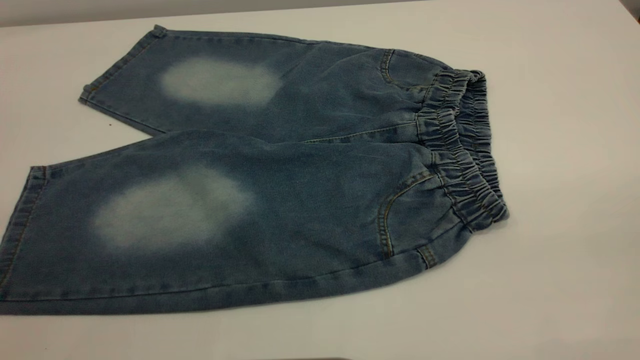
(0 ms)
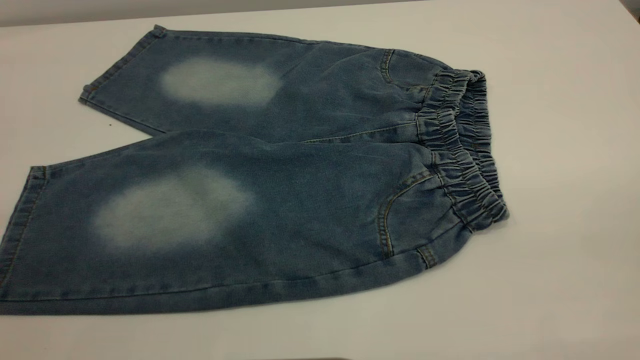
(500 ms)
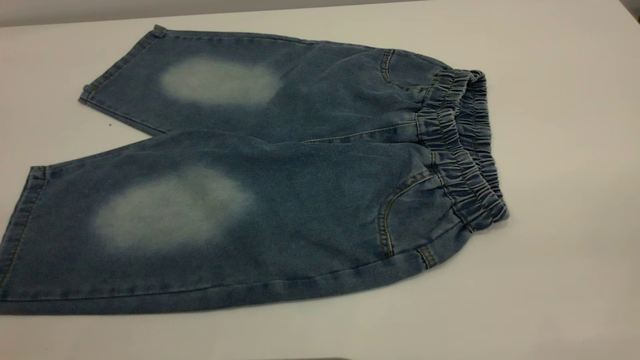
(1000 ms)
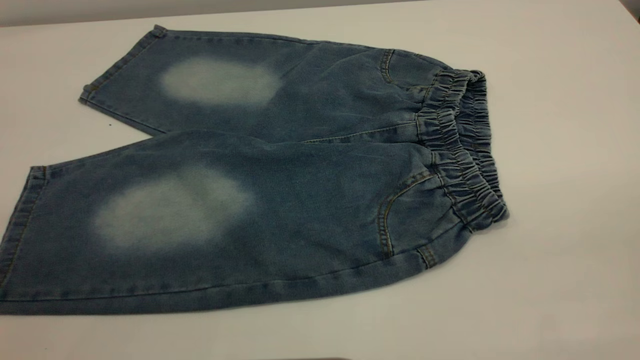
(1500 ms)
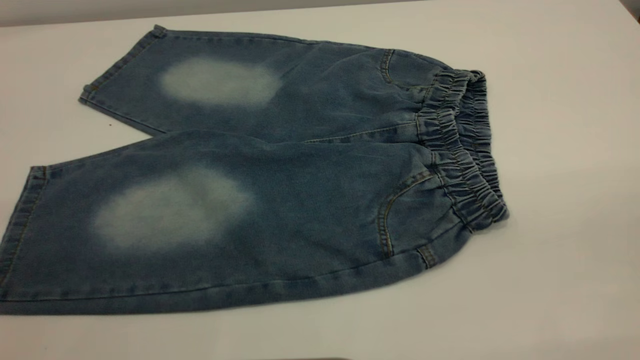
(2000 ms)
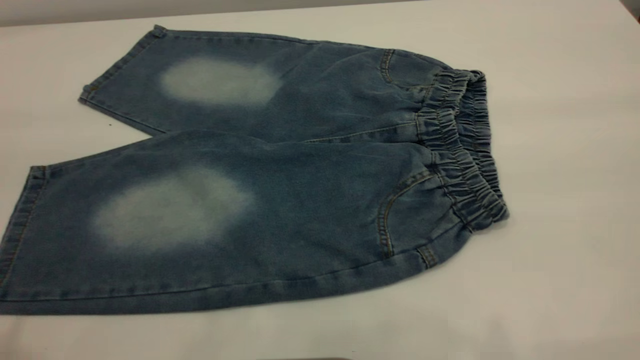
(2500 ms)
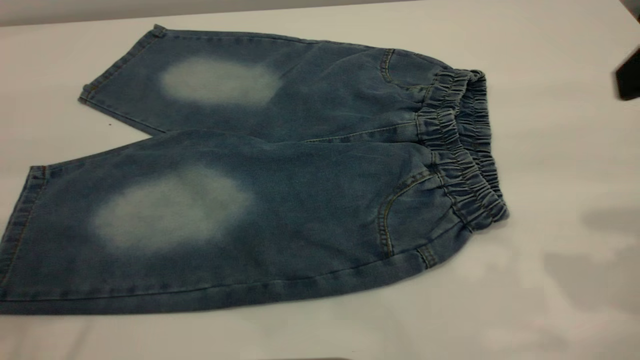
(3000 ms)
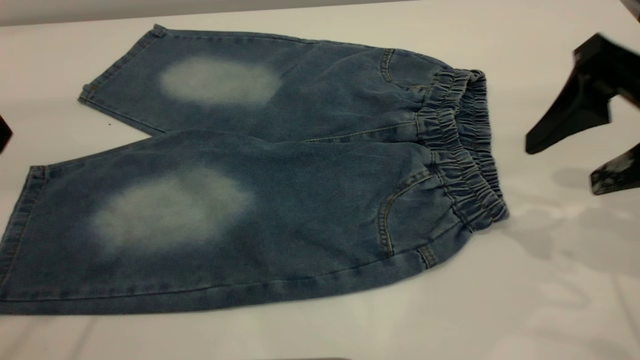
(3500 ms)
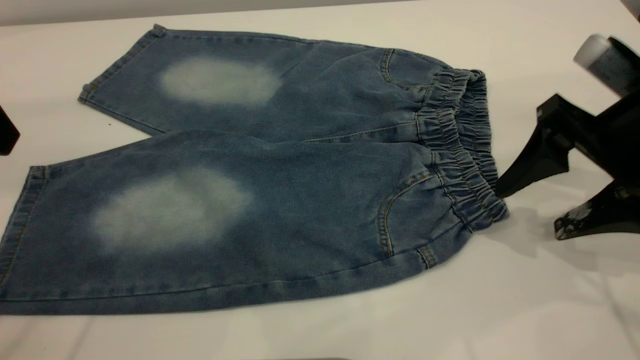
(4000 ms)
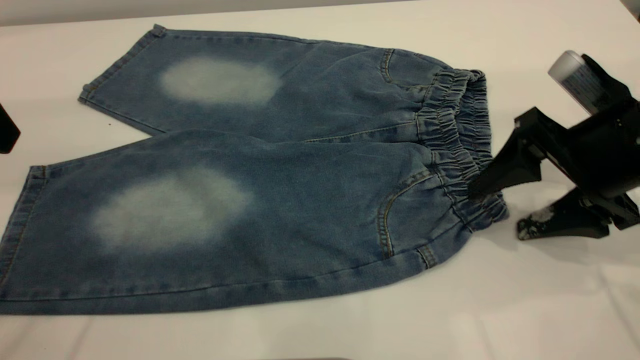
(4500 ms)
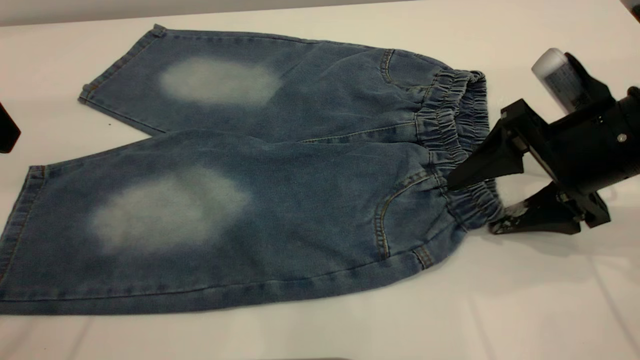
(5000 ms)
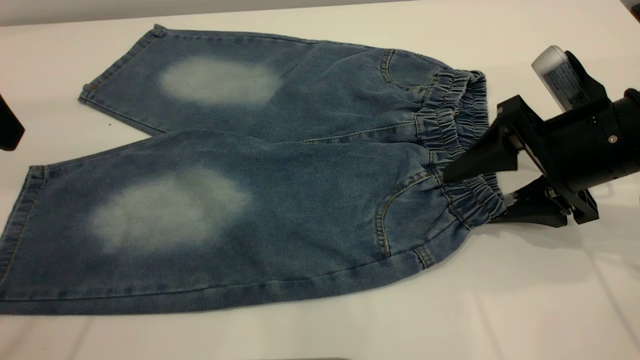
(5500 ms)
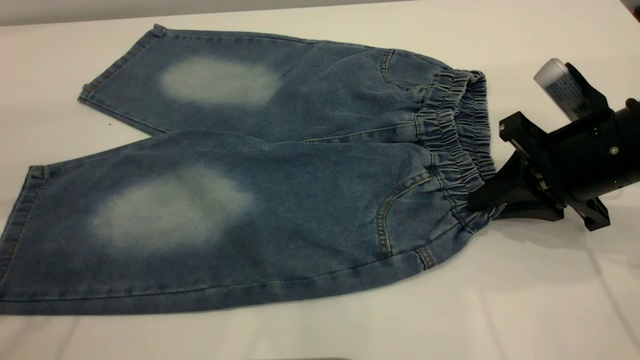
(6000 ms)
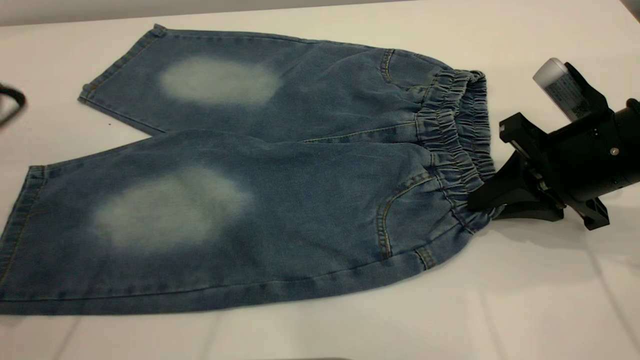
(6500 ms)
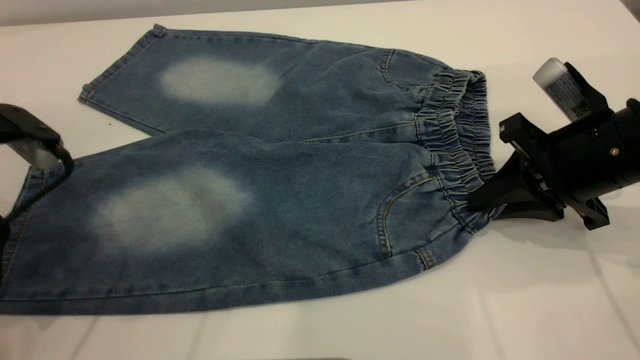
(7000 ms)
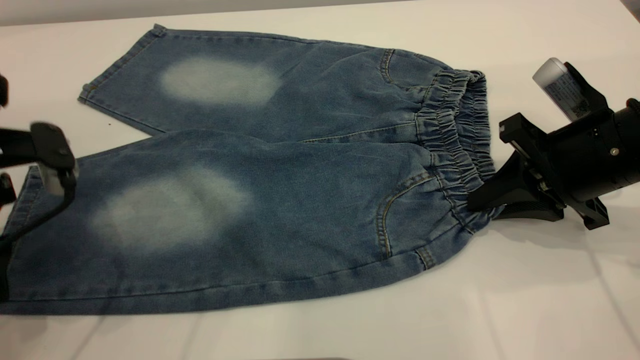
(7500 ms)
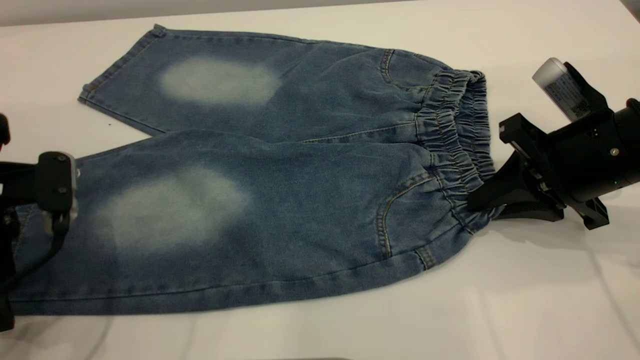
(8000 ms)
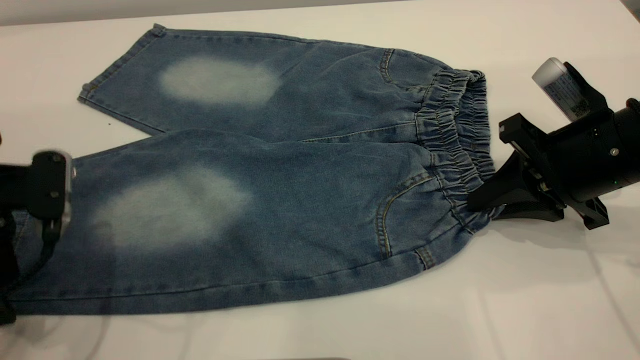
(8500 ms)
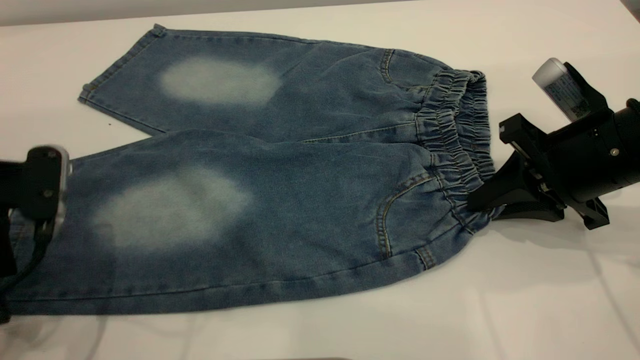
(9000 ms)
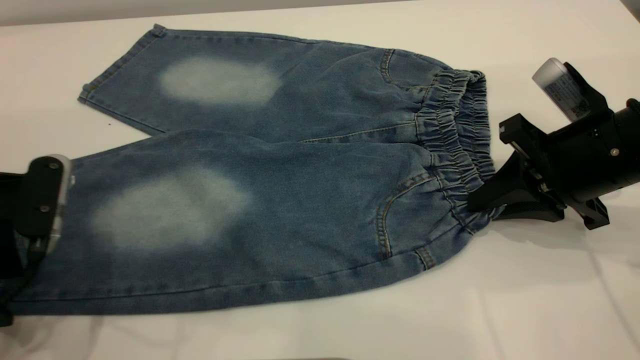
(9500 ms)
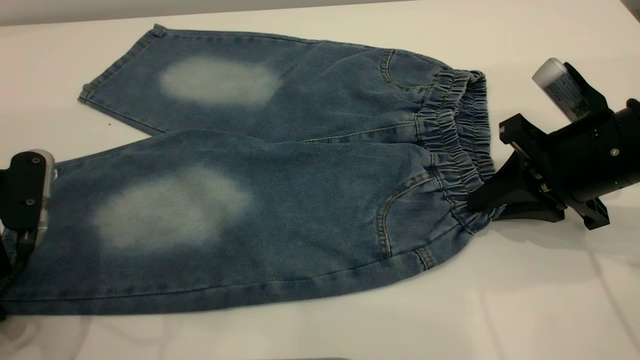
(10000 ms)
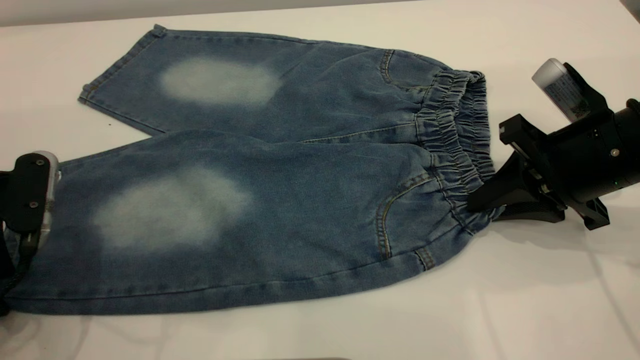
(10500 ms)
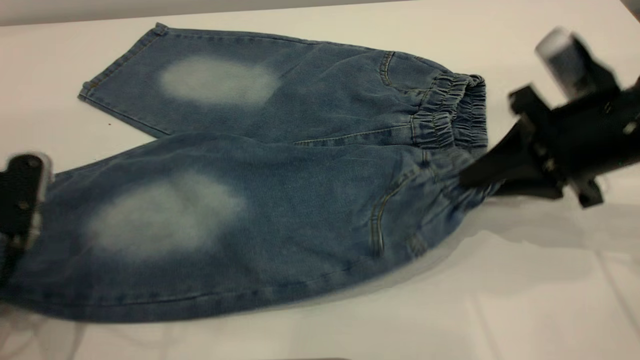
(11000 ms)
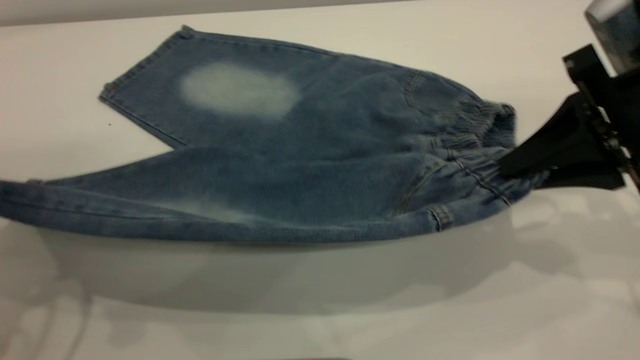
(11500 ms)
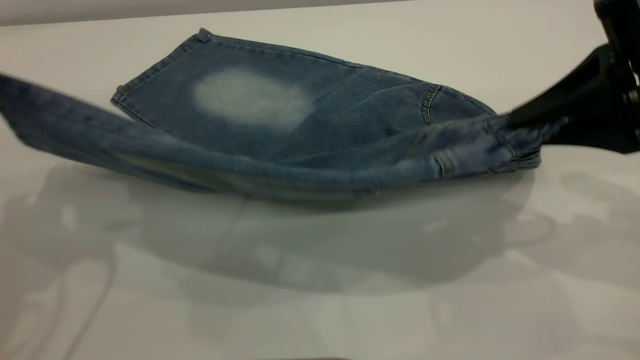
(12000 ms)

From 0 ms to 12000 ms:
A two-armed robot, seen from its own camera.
From 2000 ms to 4000 ms: The right gripper is displaced forward and downward by roughly 35 cm.
From 4000 ms to 6000 ms: The right gripper moves some 5 cm, and closes its fingers.
From 6000 ms to 8000 ms: The left gripper shifts some 15 cm downward.
From 8000 ms to 10000 ms: The grippers make only small movements.
From 10000 ms to 12000 ms: The two grippers go roughly 10 cm upward. The left gripper closes up.

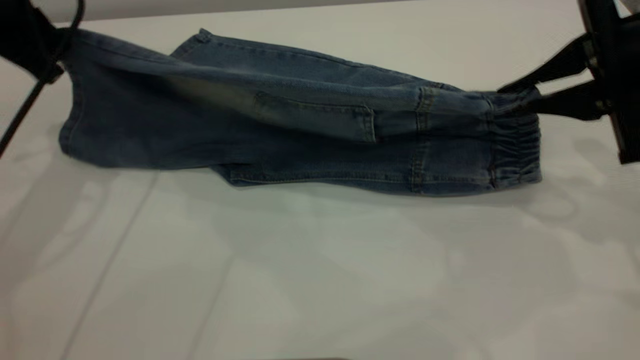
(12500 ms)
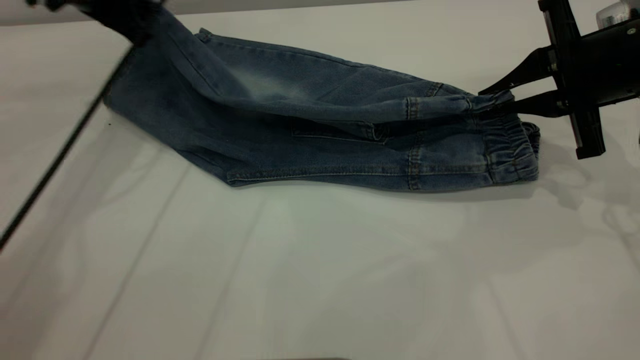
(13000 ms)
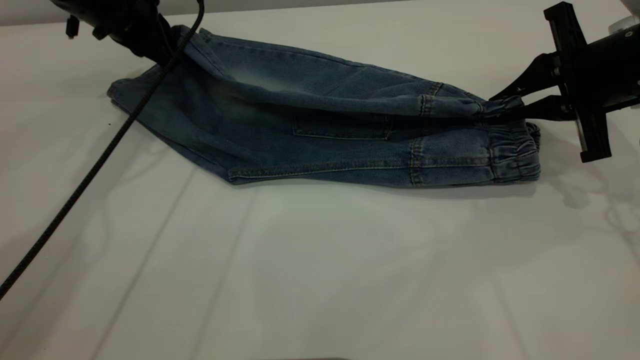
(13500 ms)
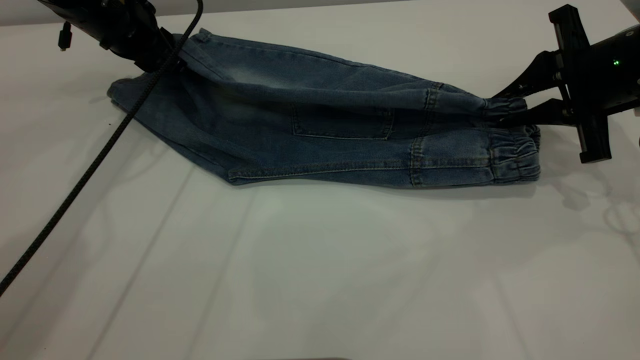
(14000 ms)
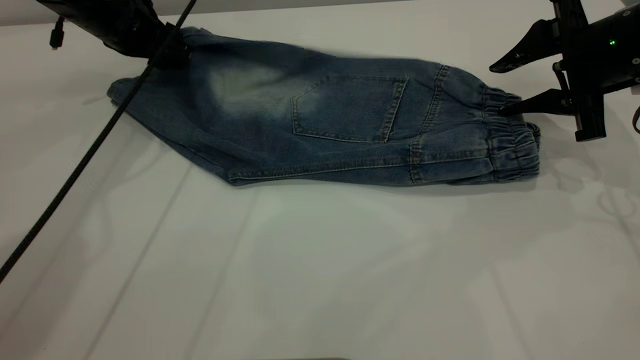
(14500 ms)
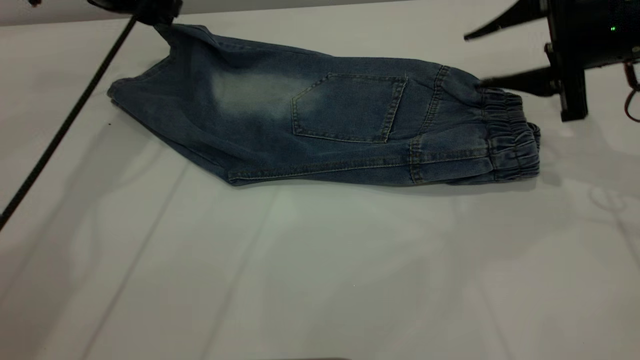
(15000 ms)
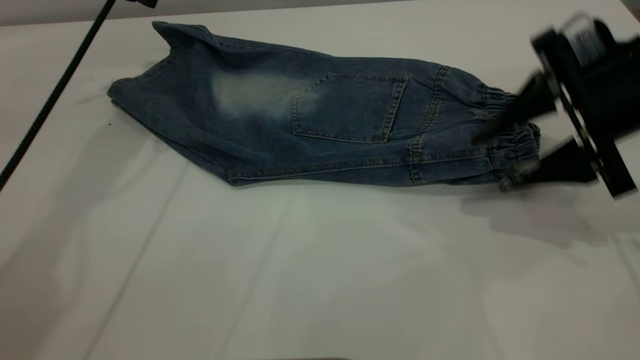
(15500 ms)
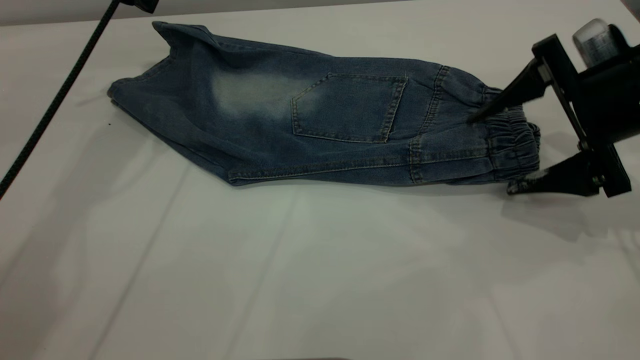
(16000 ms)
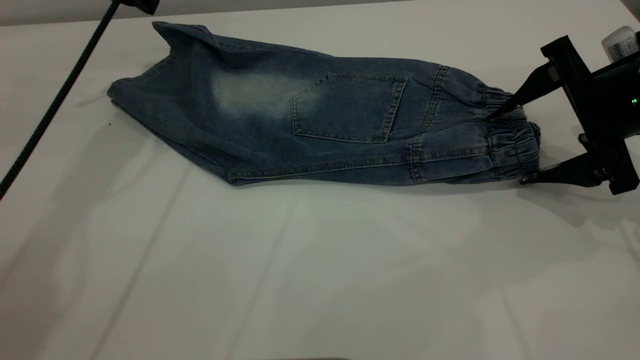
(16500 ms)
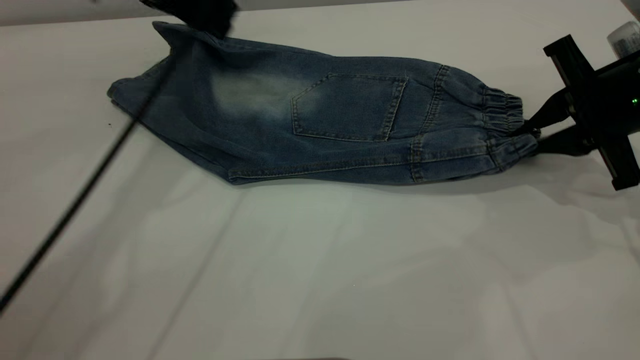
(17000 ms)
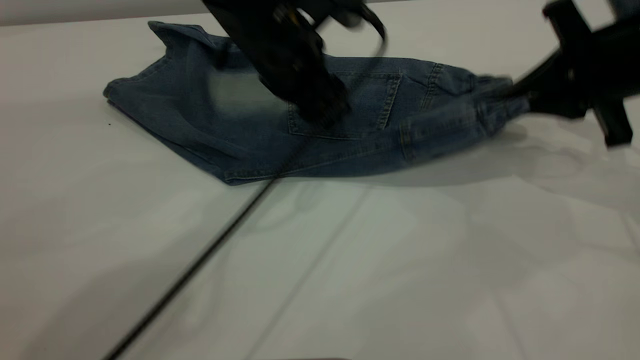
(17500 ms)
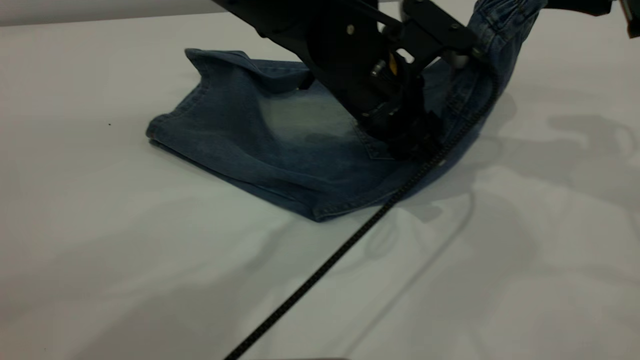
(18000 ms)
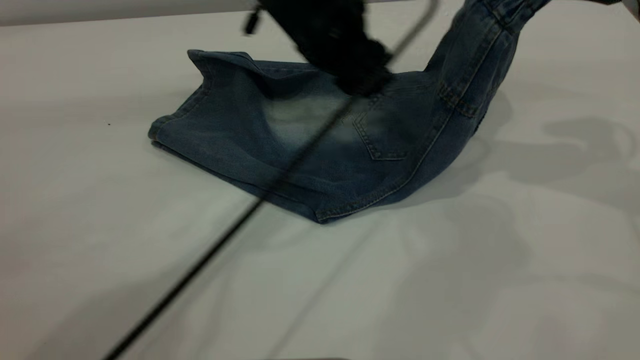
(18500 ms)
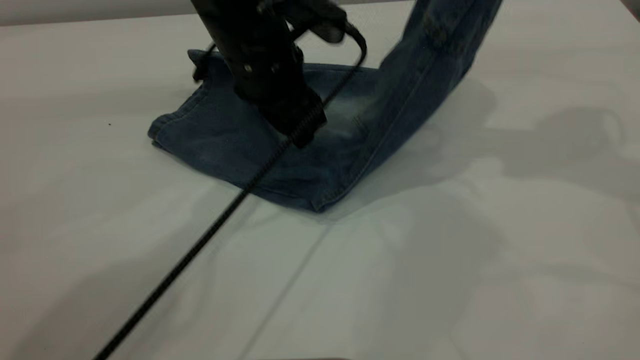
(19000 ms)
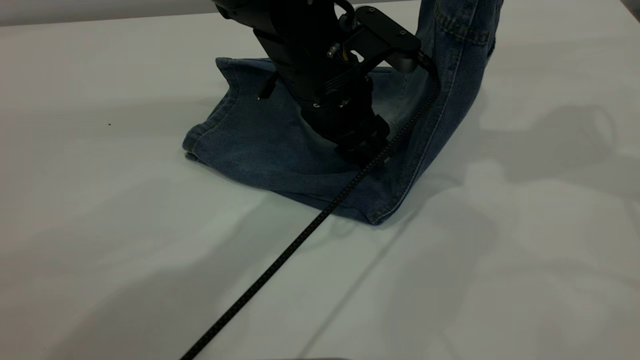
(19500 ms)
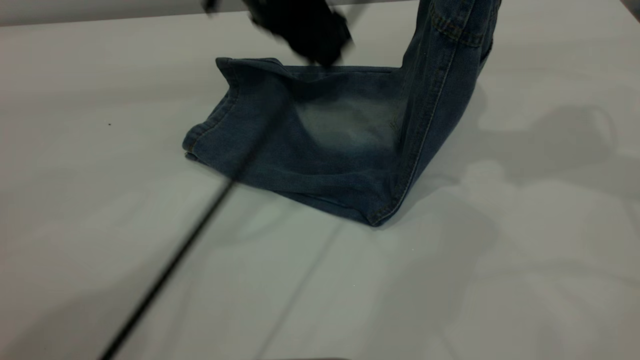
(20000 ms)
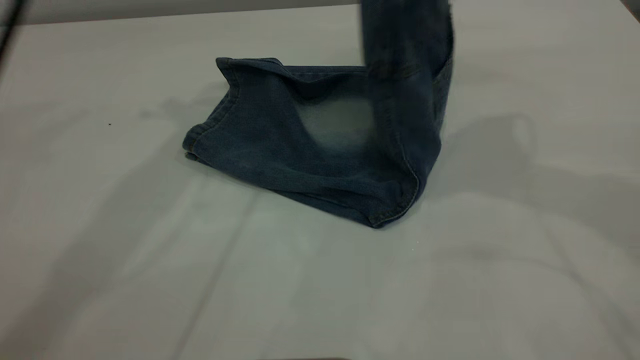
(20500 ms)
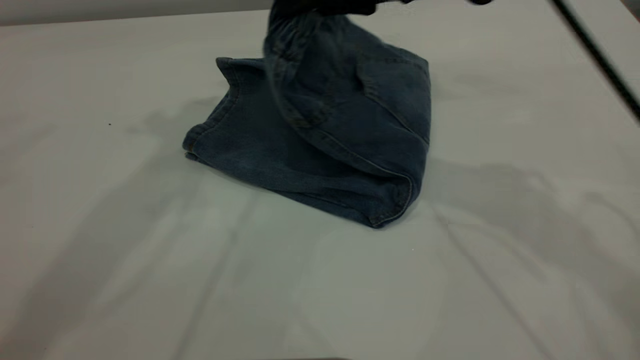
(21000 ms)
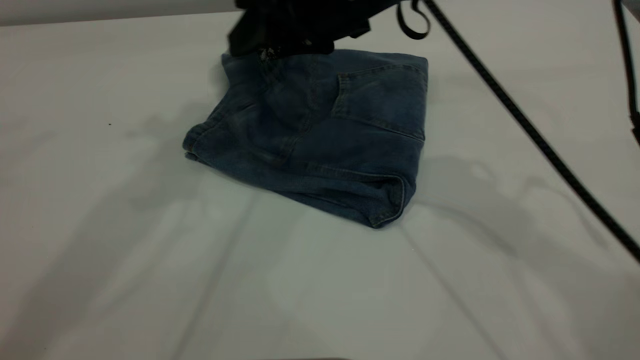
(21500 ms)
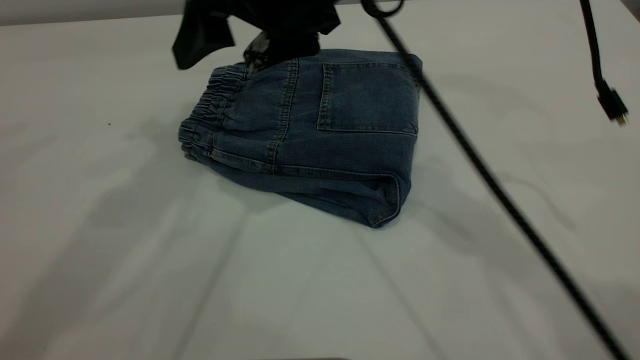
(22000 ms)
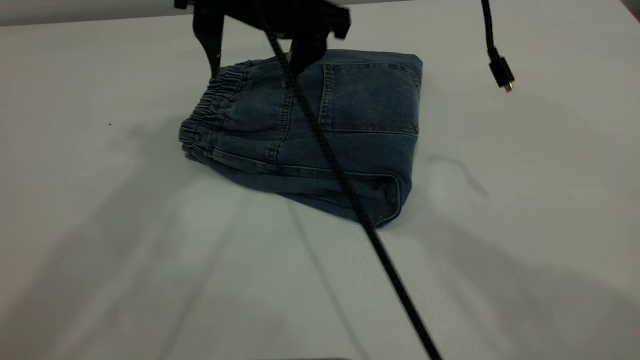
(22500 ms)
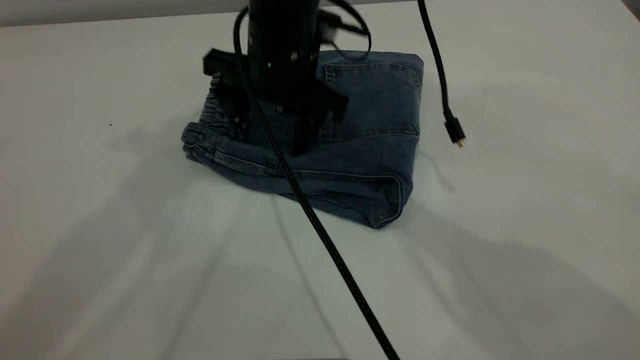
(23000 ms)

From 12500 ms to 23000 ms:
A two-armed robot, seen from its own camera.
Step, from 12500 ms to 15000 ms: Fold the bottom of the pants upward.
Step, from 15500 ms to 21500 ms: Fold your pants from right to left.
From 12500 ms to 14500 ms: The left gripper shifts approximately 15 cm forward, downward and to the right, and opens up; the right gripper is displaced forward by roughly 5 cm, and opens up.
From 14500 ms to 16500 ms: The left gripper is displaced upward by some 10 cm.
From 16500 ms to 19000 ms: The left gripper moves to the right, downward and backward, approximately 20 cm. The right gripper moves upward, approximately 20 cm, and closes up.
From 19000 ms to 21000 ms: The left gripper travels upward by roughly 30 cm. Meanwhile the right gripper is displaced to the left by some 20 cm.
From 21000 ms to 23000 ms: The left gripper moves about 5 cm; the right gripper moves to the left and downward, roughly 15 cm, and opens its fingers.
